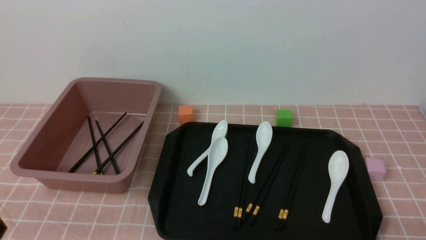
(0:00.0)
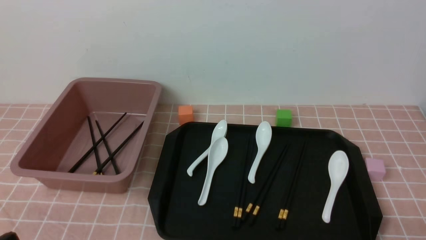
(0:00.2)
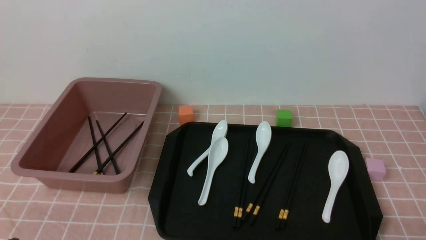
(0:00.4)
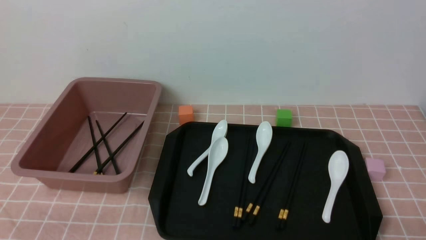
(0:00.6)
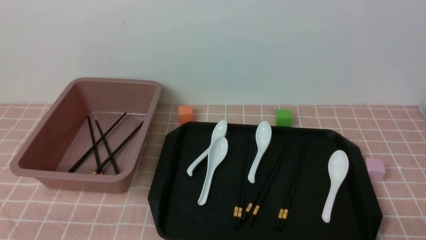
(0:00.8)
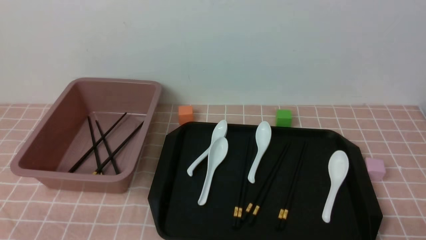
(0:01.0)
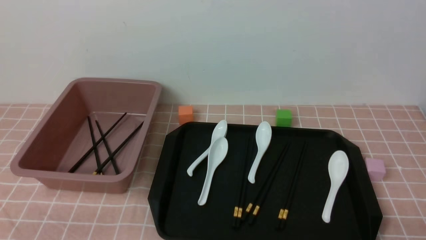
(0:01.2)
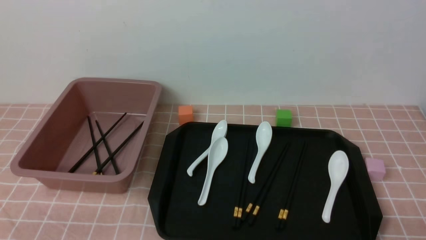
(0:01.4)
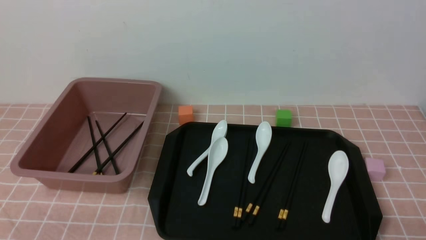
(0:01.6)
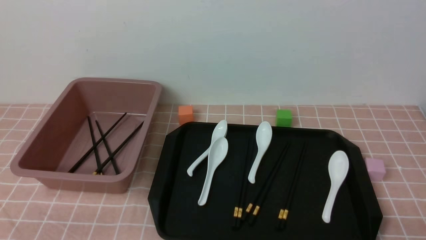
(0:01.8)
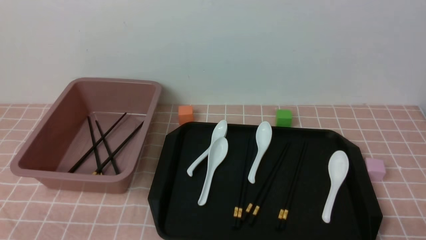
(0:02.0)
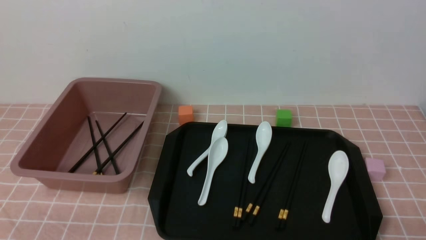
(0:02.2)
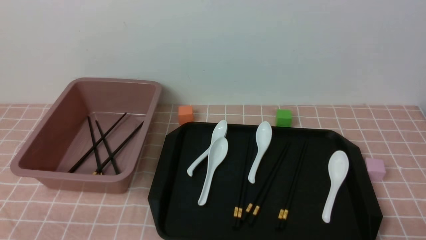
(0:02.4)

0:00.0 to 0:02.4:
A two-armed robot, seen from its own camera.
0:01.2 to 0:02.4: Neither gripper changes place.

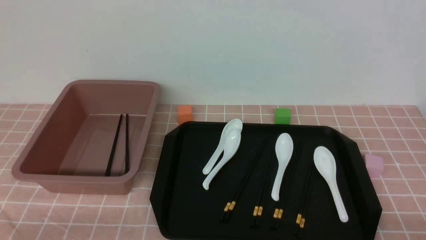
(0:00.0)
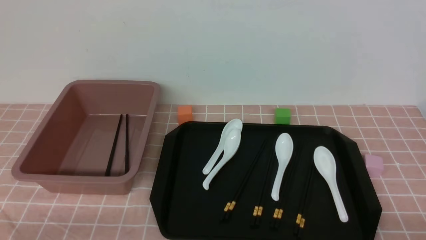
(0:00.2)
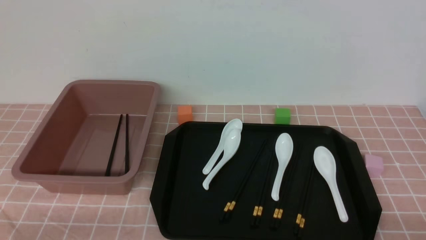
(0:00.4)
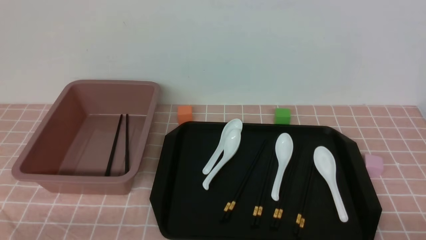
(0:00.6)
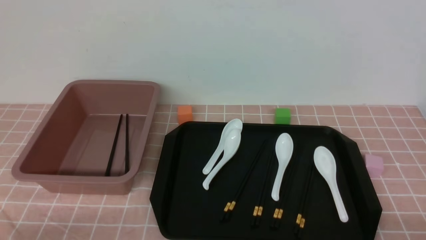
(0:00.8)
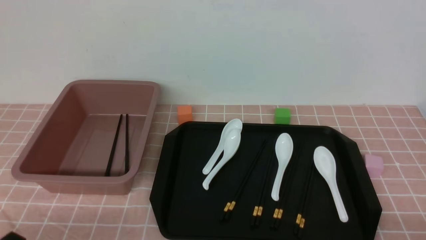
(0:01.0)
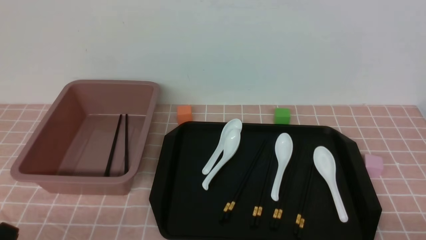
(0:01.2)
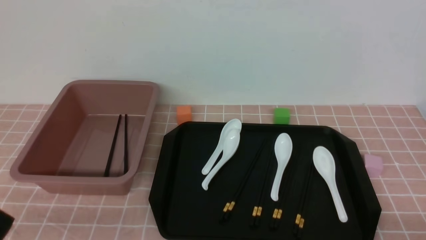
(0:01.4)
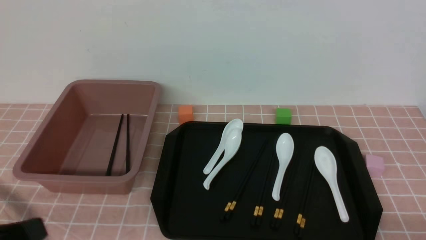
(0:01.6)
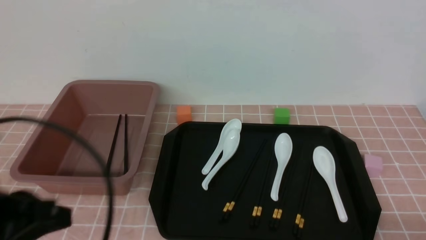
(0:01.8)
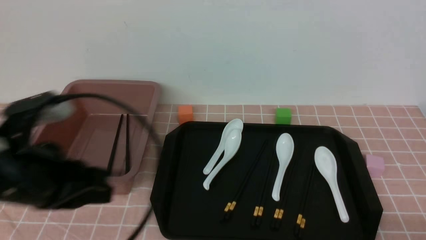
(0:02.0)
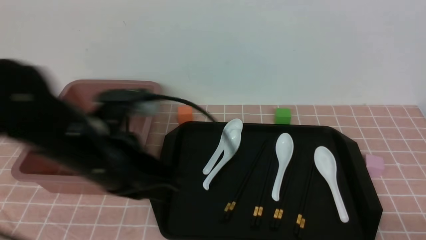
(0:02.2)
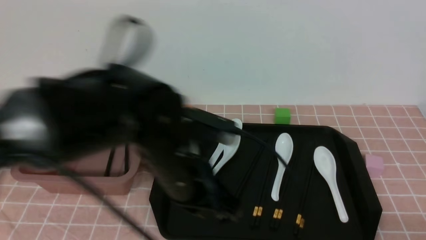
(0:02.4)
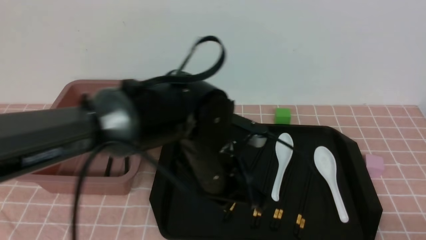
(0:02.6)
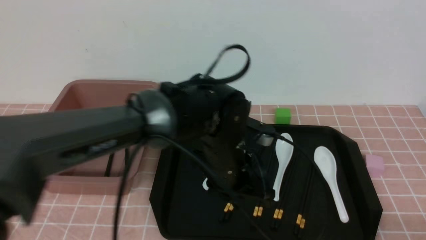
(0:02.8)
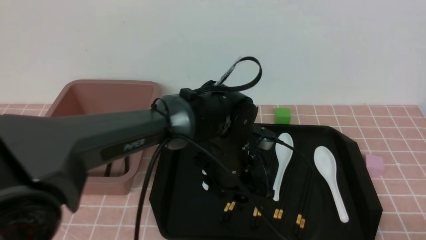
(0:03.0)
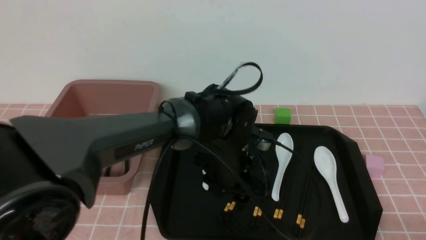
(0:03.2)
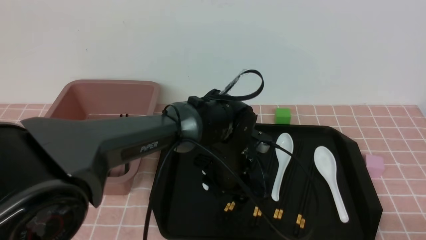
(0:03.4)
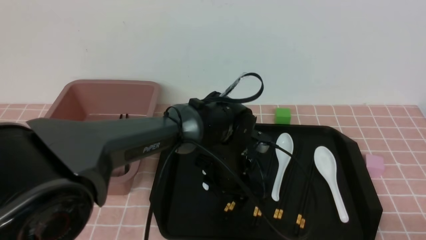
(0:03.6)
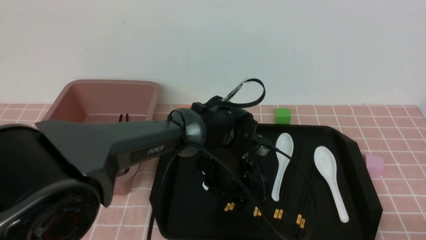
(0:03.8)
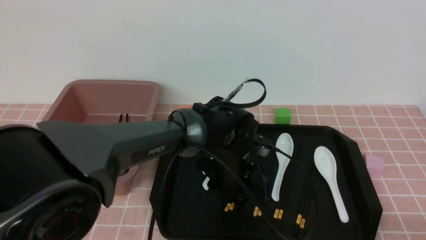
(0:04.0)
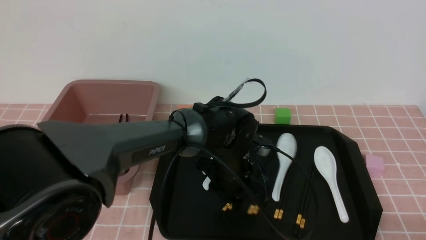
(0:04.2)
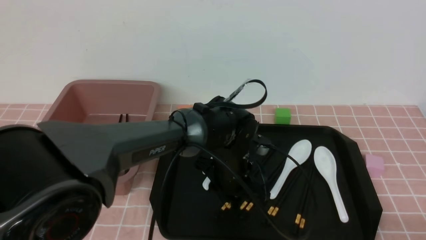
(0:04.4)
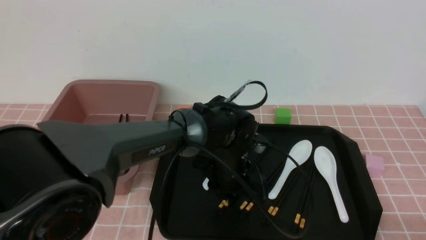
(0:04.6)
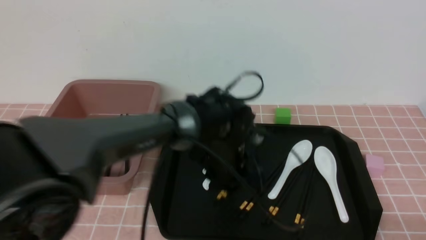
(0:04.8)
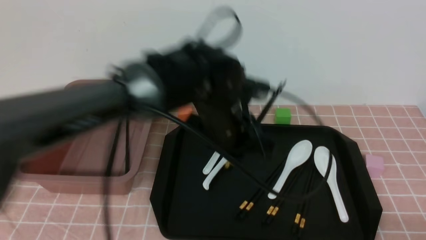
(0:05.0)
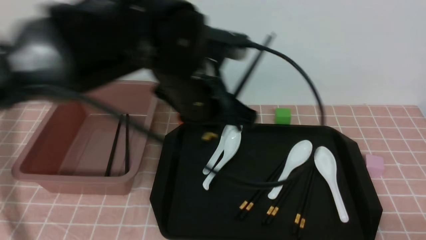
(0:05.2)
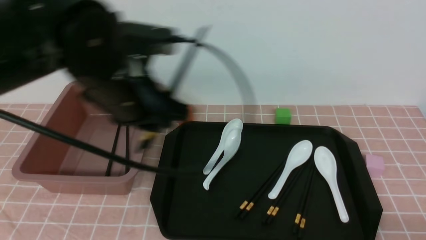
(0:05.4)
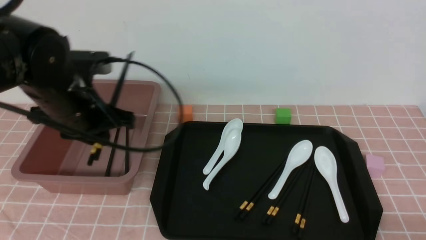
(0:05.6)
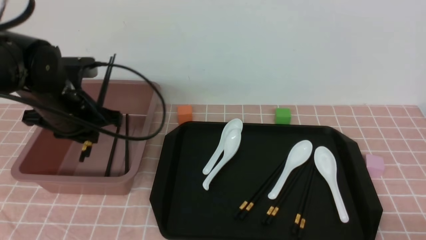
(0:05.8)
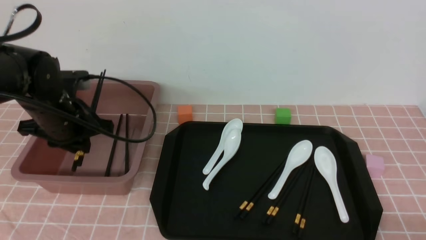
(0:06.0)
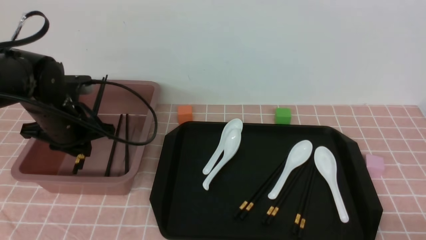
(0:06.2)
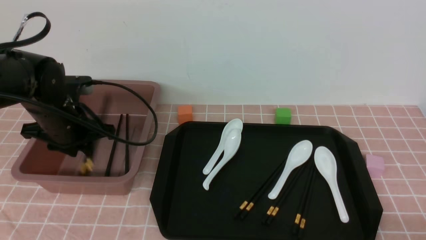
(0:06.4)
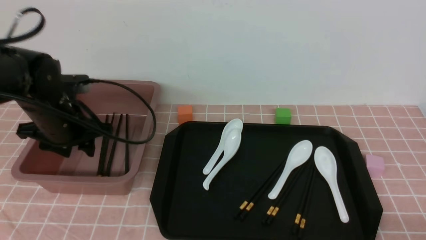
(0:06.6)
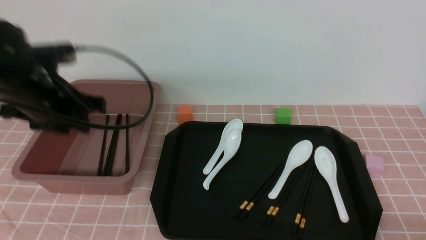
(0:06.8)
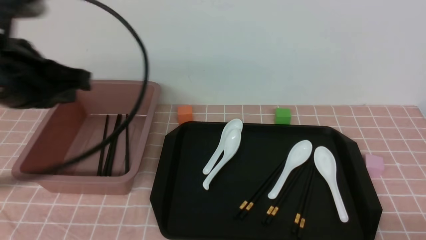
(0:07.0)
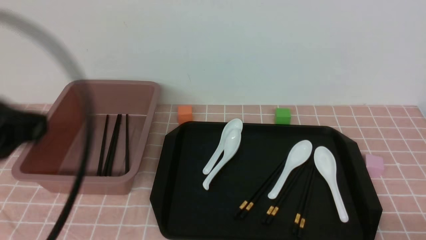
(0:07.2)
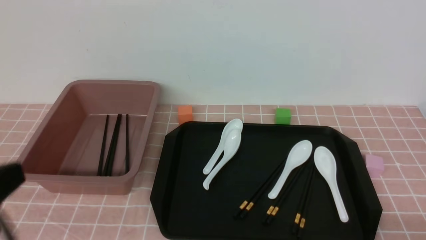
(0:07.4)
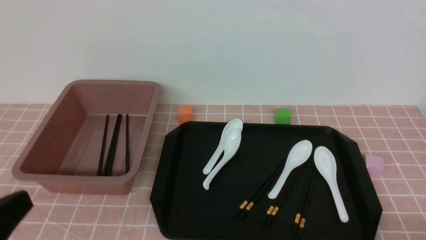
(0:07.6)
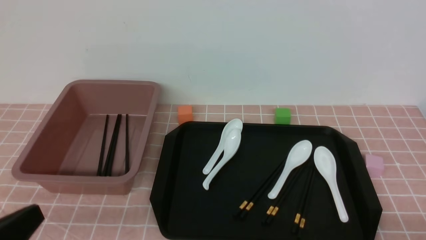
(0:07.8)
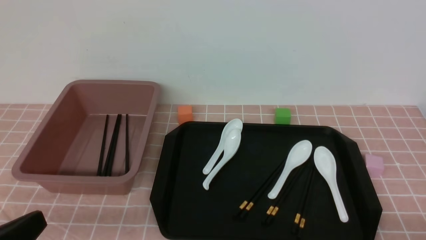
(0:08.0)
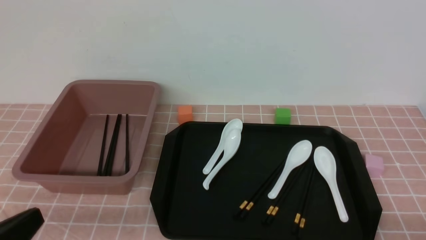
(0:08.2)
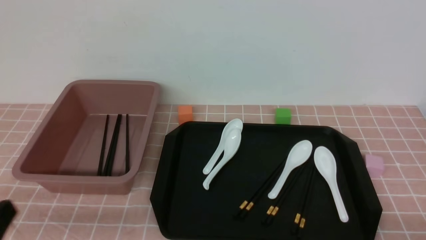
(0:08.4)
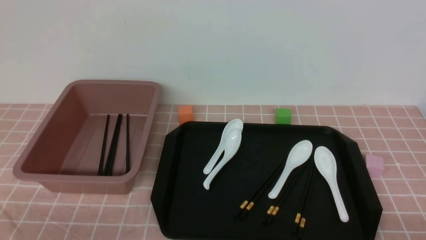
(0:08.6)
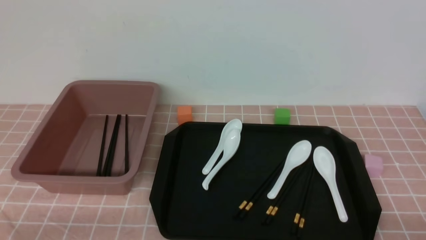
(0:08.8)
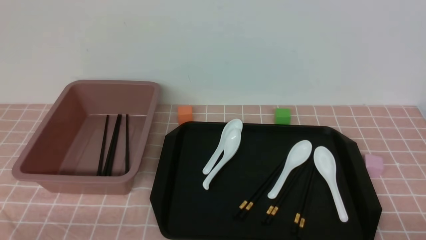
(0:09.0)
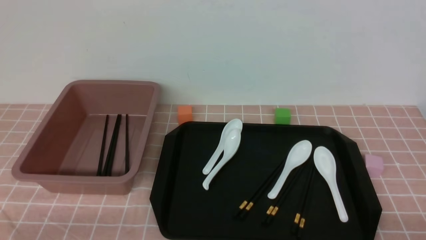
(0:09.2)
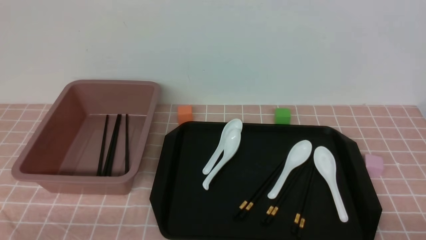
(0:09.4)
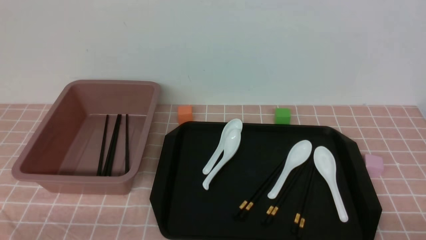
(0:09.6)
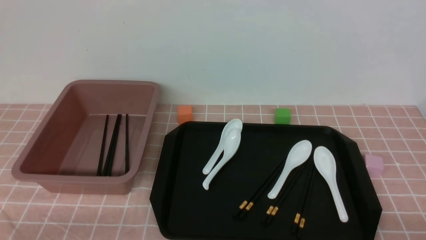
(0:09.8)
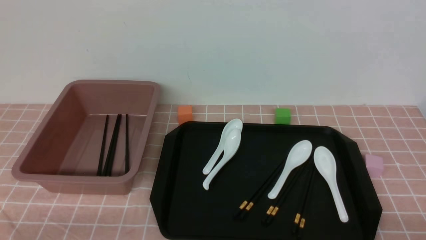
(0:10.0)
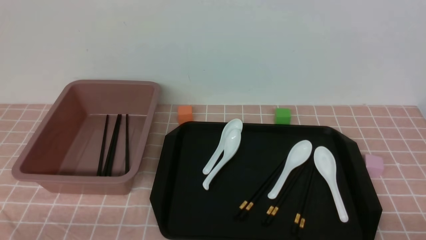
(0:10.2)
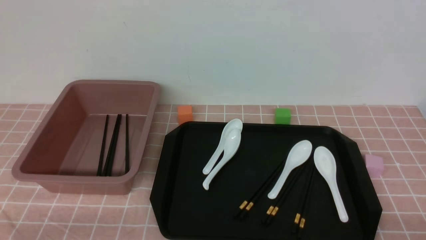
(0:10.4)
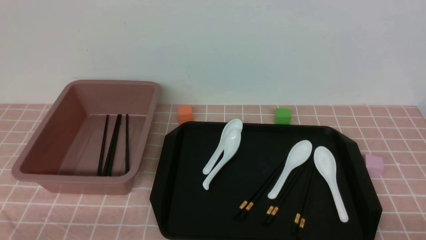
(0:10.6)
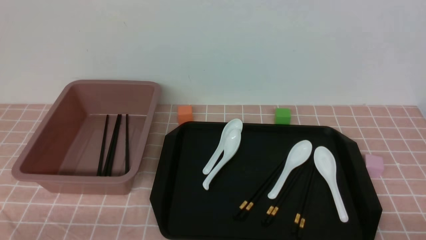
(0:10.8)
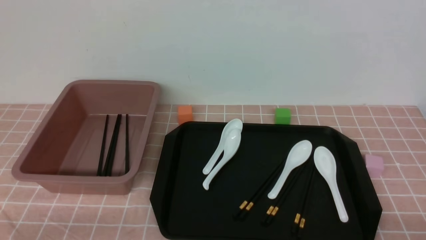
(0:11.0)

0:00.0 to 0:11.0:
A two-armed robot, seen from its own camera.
Step, 0:00.0 to 0:05.0: use the left arm to grab a pair of chopsticks.
Step, 0:05.2 to 0:06.8: use the left arm to put the chopsticks into the lunch box.
0:00.0 to 0:01.6: The left gripper is displaced upward by some 10 cm.
0:01.6 to 0:03.2: The left gripper goes approximately 40 cm to the right, forward and downward, and opens.
0:03.2 to 0:04.8: The left gripper closes up.
0:04.8 to 0:06.2: The left gripper goes some 25 cm to the left.
0:06.2 to 0:07.8: The left gripper moves backward, roughly 30 cm, and closes up.
0:07.8 to 0:09.4: The left gripper goes some 10 cm downward.
0:09.4 to 0:11.0: Both grippers stay about where they are.
